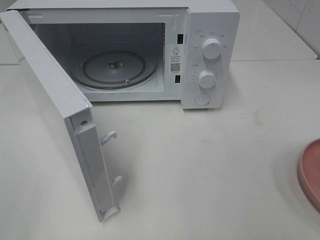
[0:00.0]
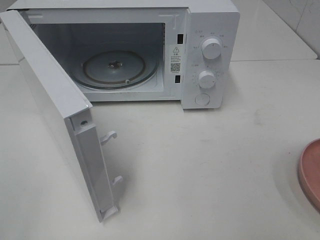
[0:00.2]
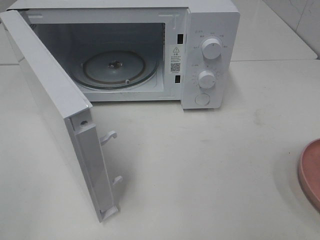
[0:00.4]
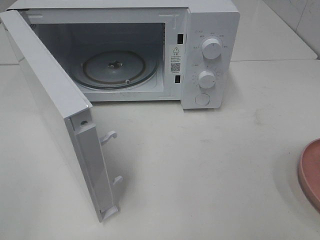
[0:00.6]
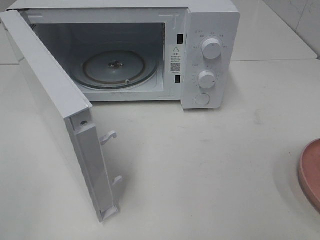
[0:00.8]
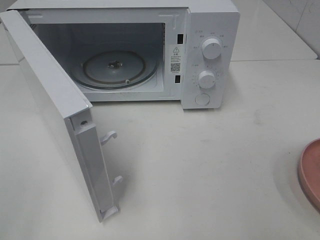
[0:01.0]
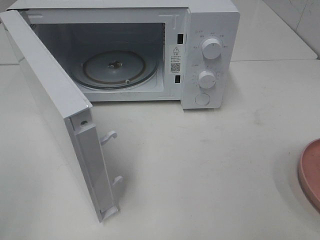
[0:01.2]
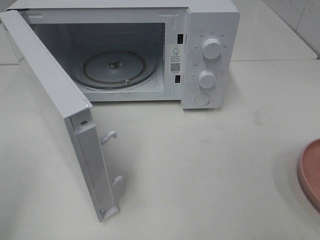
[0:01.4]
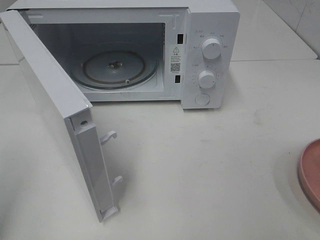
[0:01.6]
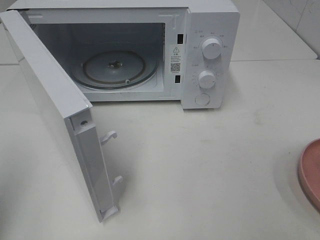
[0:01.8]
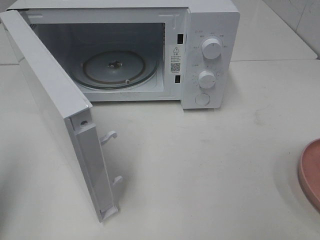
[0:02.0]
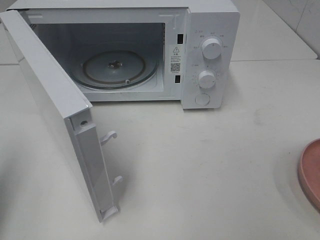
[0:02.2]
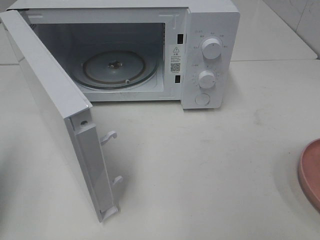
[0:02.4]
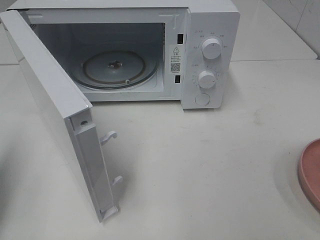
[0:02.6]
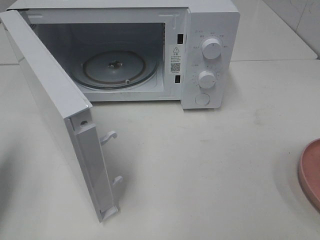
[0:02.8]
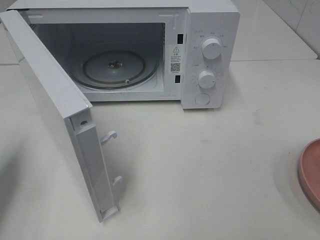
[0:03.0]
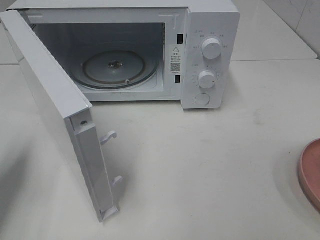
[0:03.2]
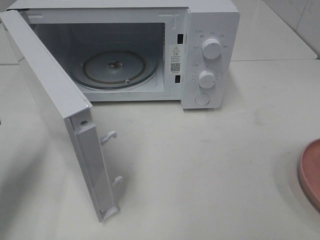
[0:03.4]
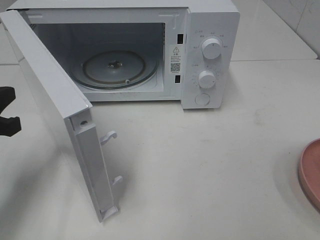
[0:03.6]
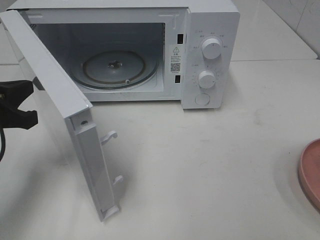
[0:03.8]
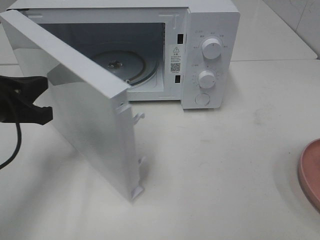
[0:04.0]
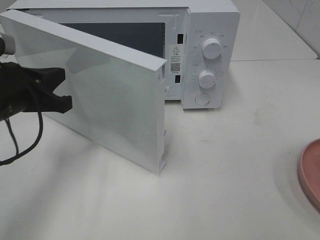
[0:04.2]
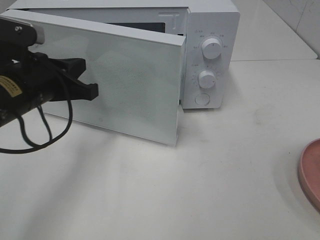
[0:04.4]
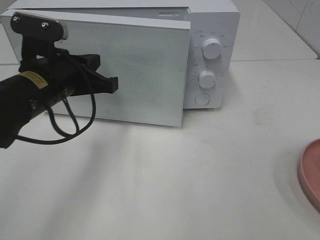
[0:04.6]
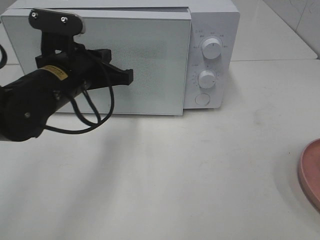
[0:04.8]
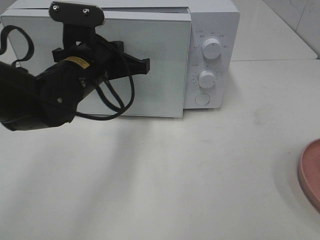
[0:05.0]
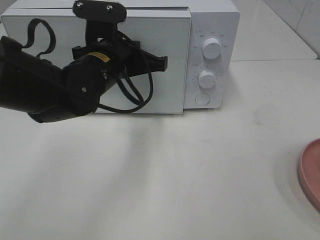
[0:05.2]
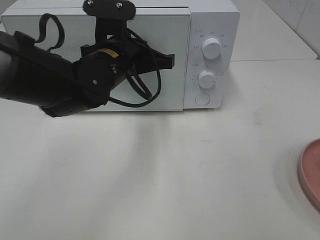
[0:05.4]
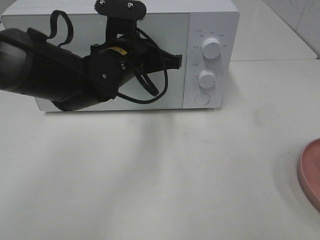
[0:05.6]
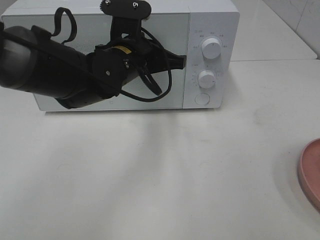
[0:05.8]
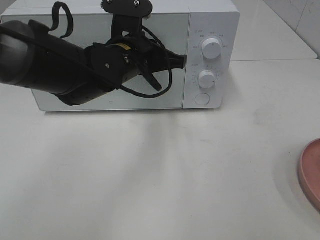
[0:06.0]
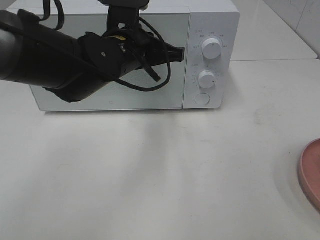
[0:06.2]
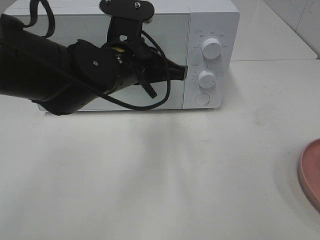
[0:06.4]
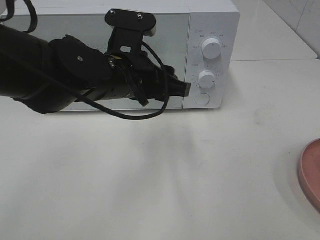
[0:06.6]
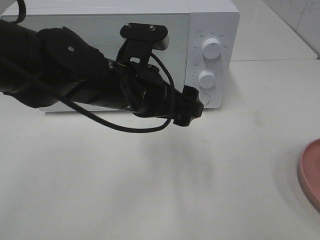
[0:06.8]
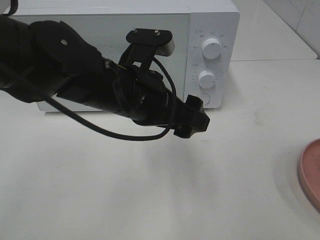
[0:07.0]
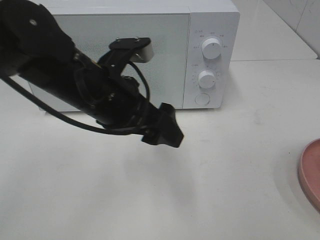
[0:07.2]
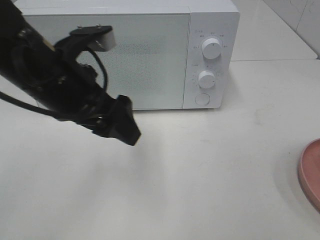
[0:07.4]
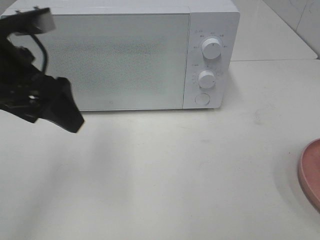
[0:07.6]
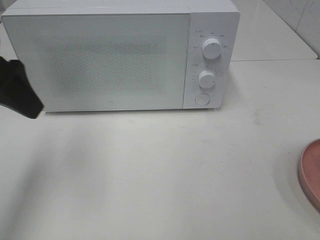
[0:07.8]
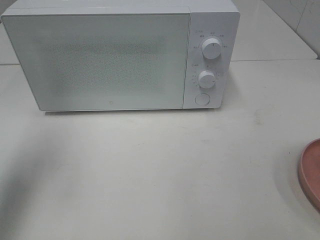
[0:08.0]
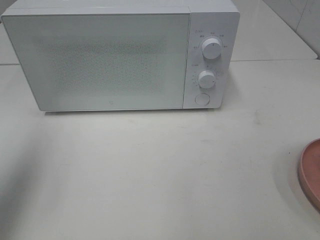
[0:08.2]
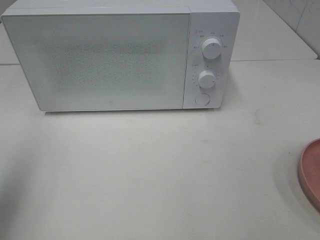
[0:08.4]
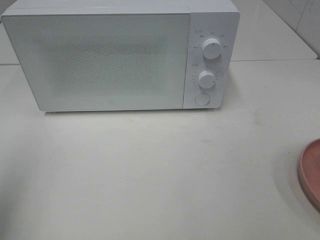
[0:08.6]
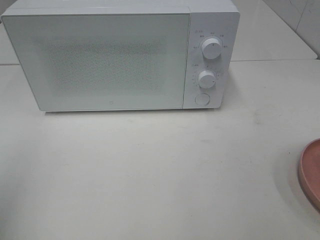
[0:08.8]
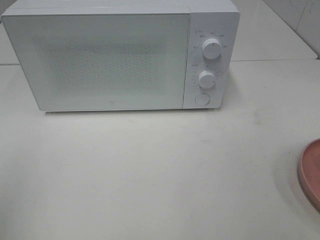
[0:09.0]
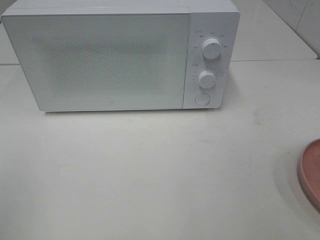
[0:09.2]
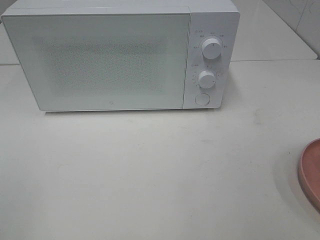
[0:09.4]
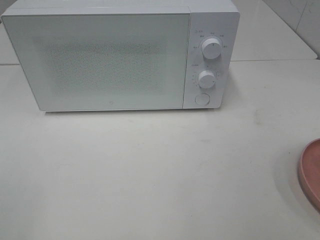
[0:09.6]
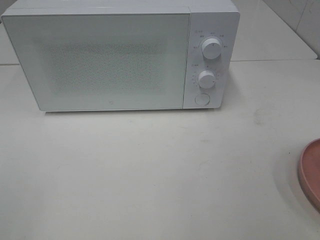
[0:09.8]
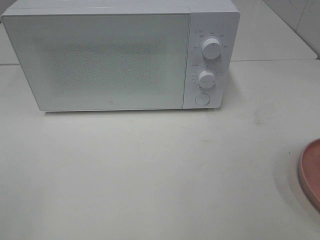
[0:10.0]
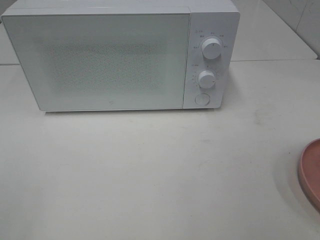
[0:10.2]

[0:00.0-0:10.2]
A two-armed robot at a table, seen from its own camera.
Task of the whole recording: Heat the burger.
Step, 0:00.0 to 0:06.8: Left hand: close the microwave door.
0:01.4 to 0:03.0: The left gripper travels forward and downward by roughly 15 cm, and closes up.
0:03.0 to 0:04.4: The left gripper goes about 15 cm to the right and forward.
0:04.4 to 0:05.8: The left gripper is displaced to the right and forward by some 15 cm.
0:05.8 to 0:07.2: The left gripper goes about 10 cm backward, and opens up.
0:07.2 to 0:08.8: The left gripper heads to the left and backward, covering some 30 cm.

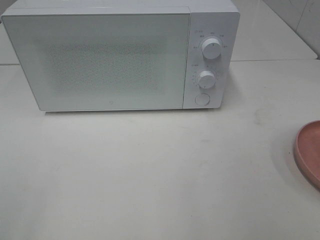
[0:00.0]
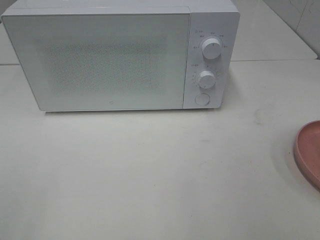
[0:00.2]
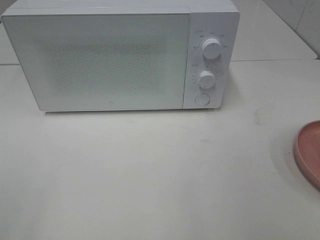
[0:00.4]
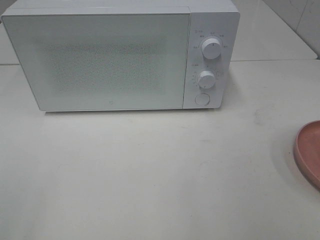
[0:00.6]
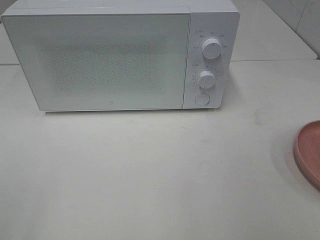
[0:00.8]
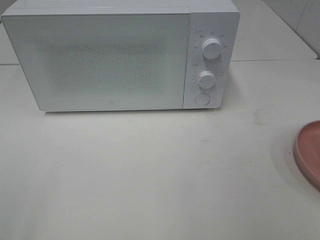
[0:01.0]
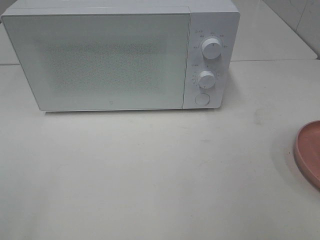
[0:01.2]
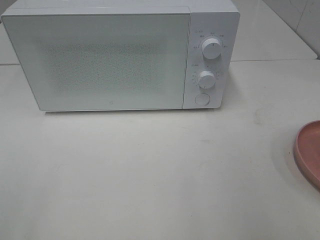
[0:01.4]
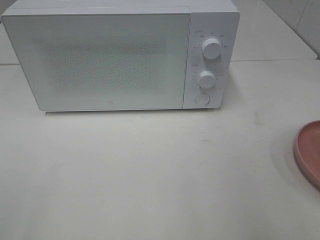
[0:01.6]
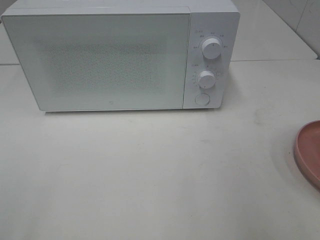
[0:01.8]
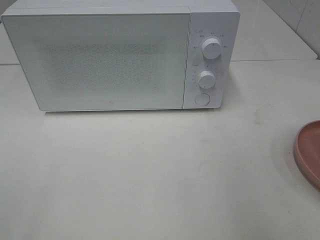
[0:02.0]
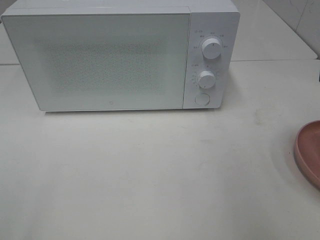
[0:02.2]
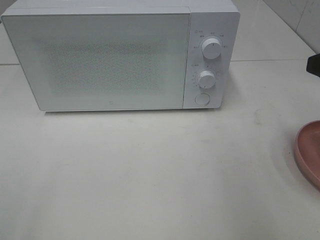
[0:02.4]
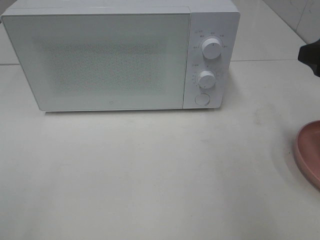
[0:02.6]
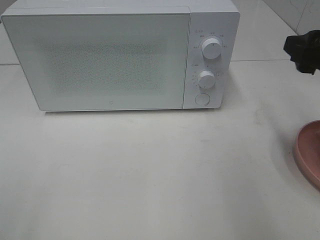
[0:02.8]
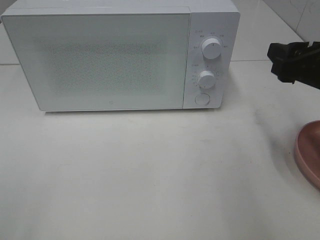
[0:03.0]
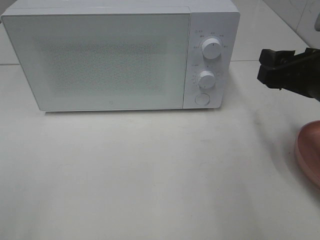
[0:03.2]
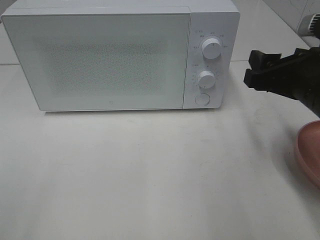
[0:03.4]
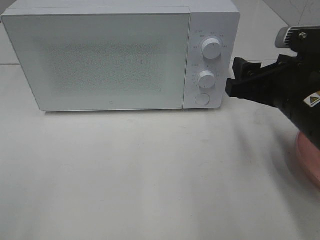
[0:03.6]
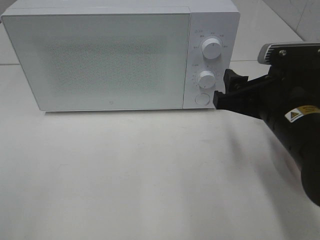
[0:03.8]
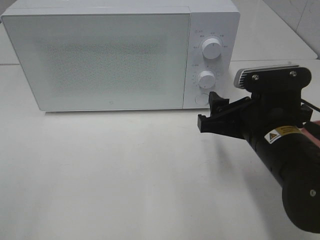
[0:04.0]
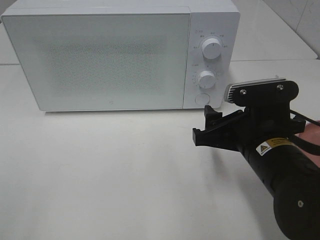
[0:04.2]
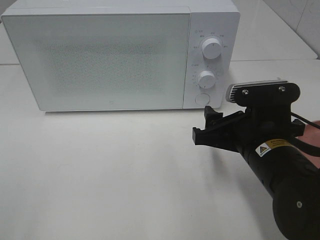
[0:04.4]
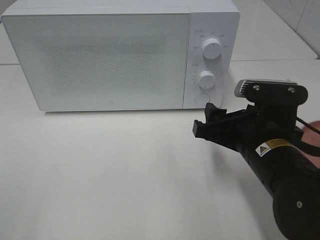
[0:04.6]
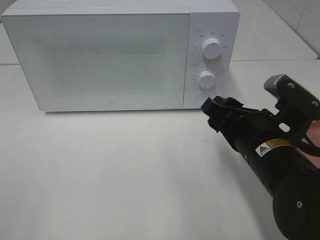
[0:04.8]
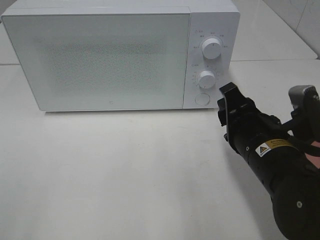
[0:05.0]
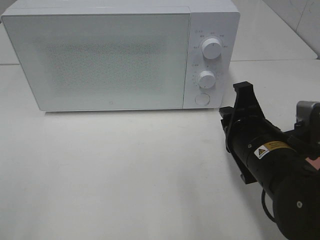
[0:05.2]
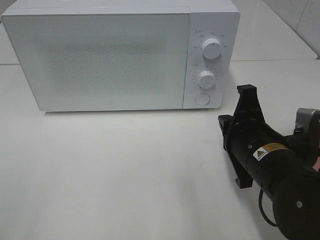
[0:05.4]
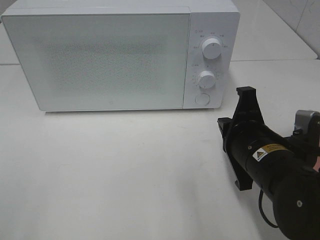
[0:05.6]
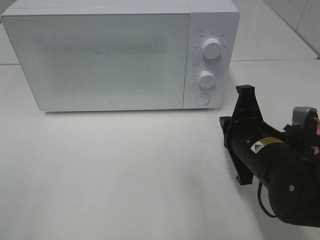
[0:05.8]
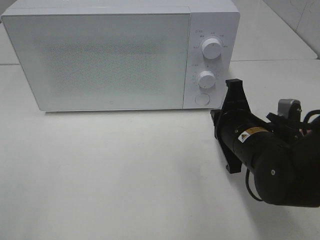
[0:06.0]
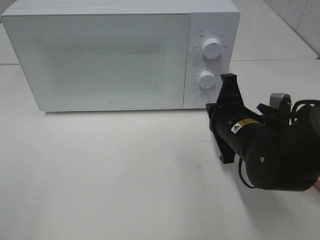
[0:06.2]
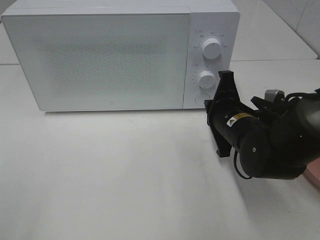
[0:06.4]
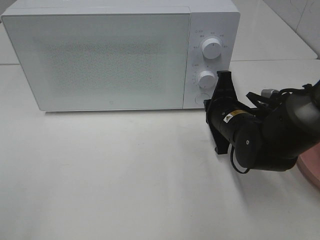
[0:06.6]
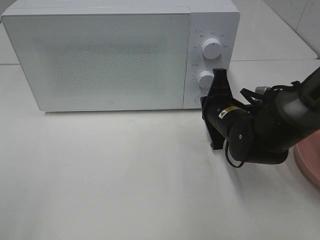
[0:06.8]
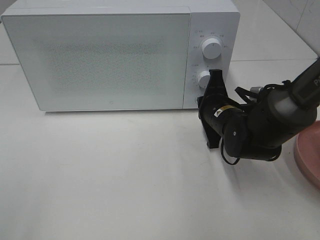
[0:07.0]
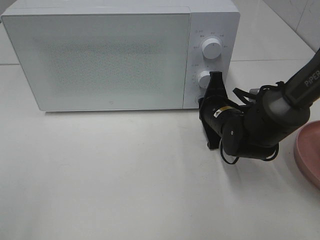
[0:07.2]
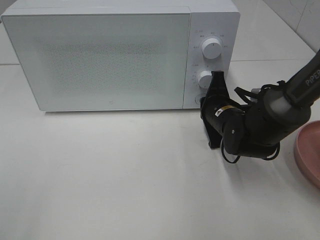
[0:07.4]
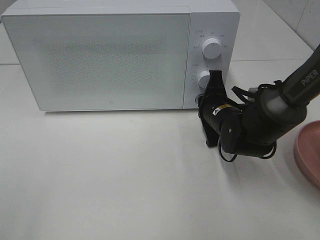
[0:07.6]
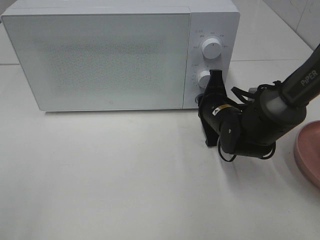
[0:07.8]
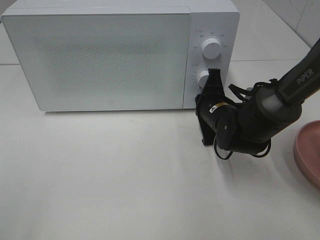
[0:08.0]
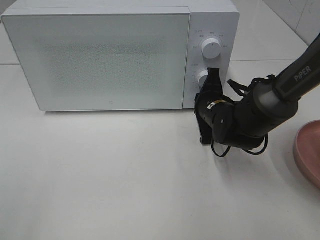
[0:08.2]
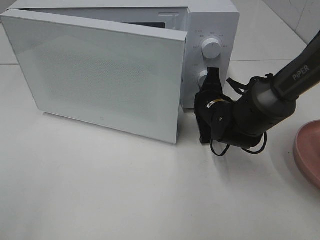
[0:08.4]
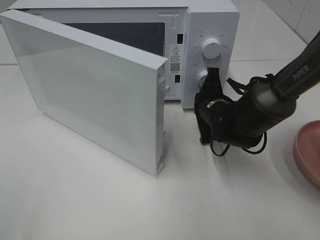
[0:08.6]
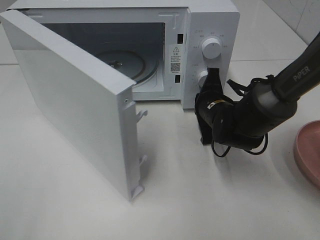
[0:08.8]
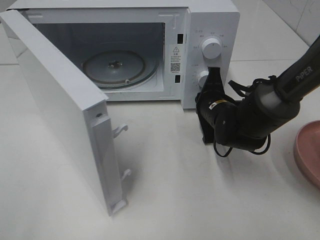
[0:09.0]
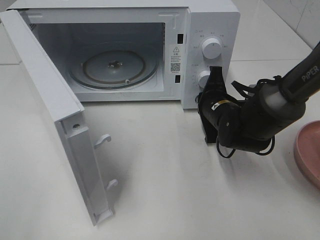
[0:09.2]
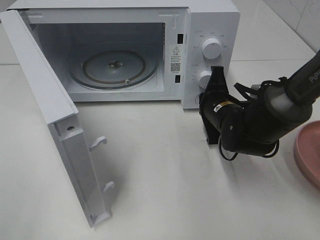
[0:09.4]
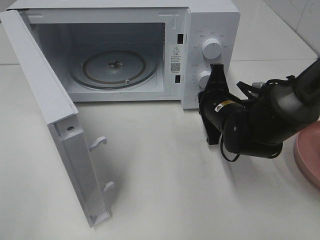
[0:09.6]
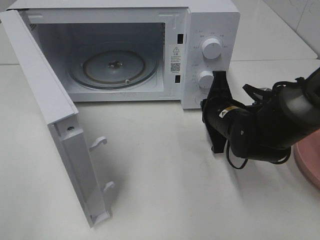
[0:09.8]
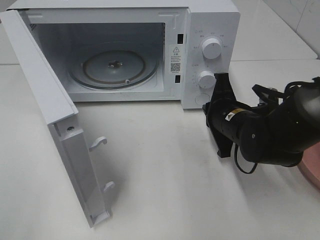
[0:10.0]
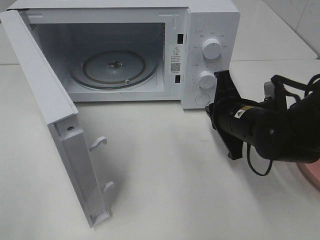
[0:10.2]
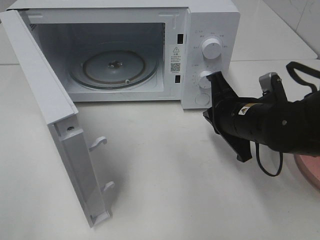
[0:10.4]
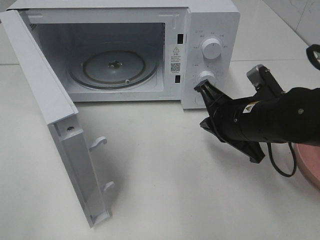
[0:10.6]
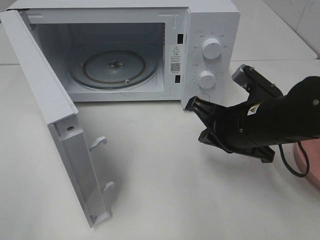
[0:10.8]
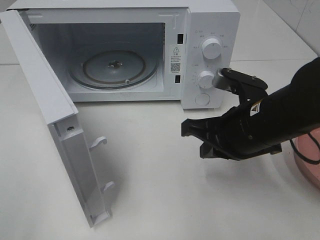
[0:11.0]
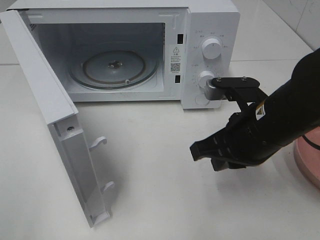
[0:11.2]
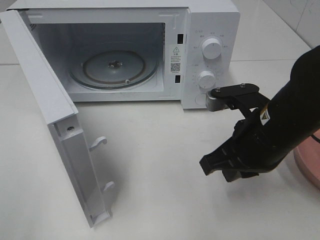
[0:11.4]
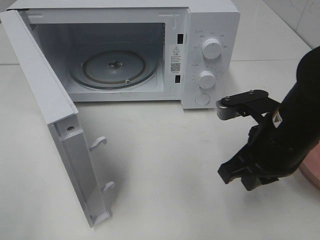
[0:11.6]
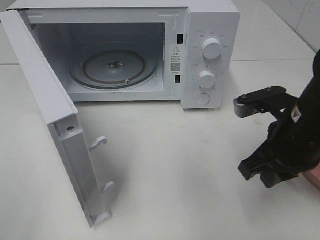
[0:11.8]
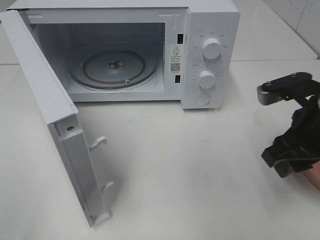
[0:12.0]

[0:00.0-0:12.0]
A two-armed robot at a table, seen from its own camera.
Task of the whole recording: Heat the burger.
Step, 0:00.0 to 0:09.8: Right hand: press the switch.
0:01.6 to 0:03.0: The right gripper shifts some 15 cm forward and downward.
0:03.0 to 0:04.4: The right gripper is displaced to the left and downward by approximately 15 cm.
0:04.4 to 0:06.0: The right gripper closes.
0:06.0 to 0:07.6: The right gripper heads forward, covering approximately 10 cm.
0:09.0 to 0:10.4: The right gripper moves backward and upward, about 10 cm.
0:10.4 to 0:12.0: The right gripper travels to the right and upward by roughly 10 cm, and opens up.
